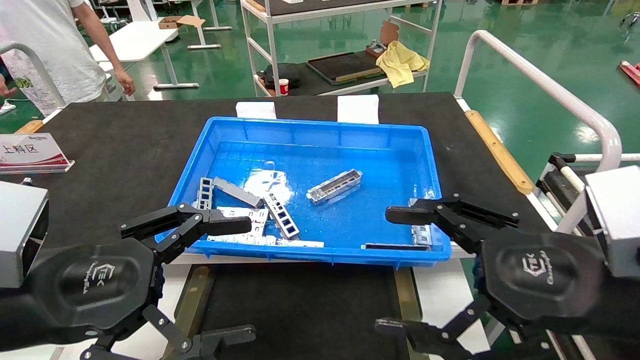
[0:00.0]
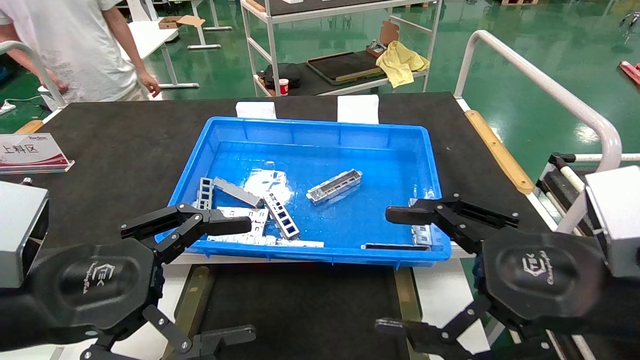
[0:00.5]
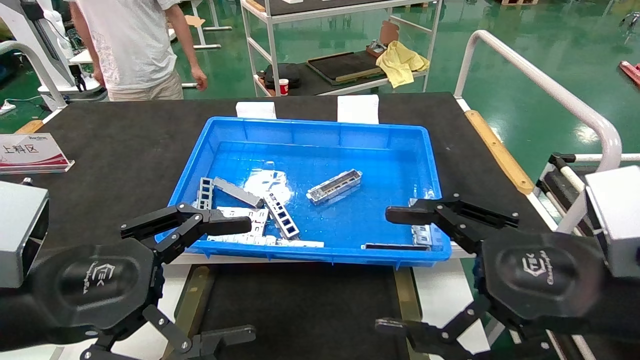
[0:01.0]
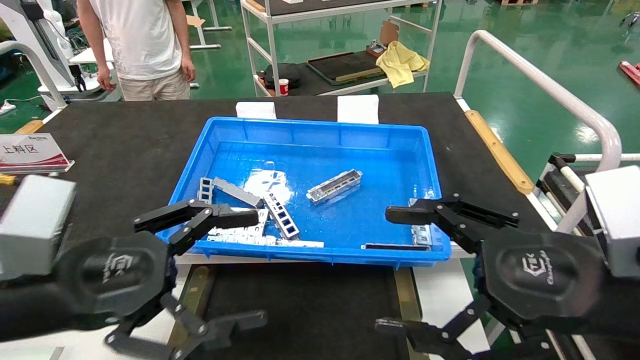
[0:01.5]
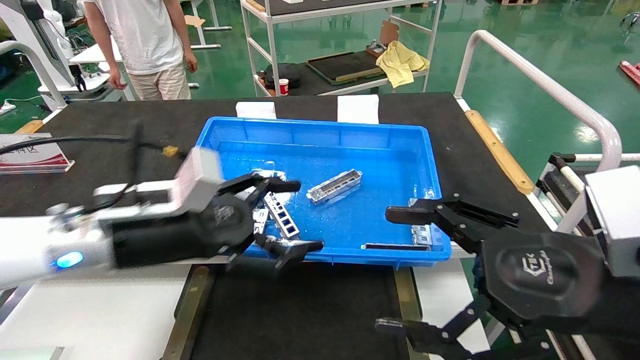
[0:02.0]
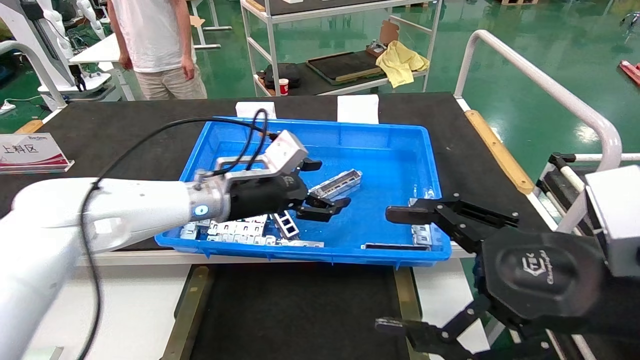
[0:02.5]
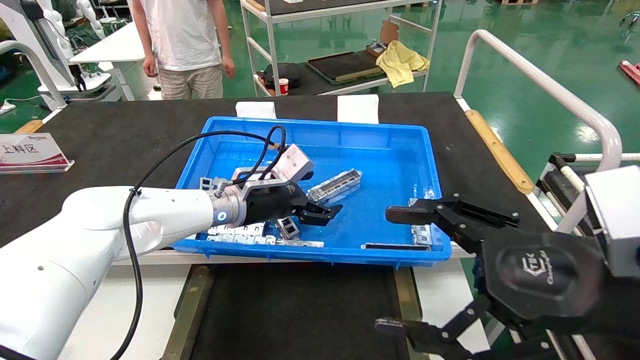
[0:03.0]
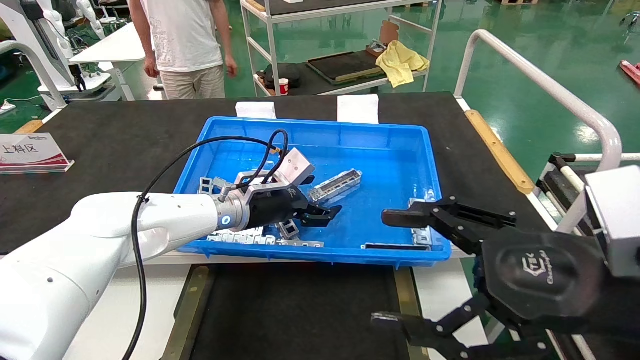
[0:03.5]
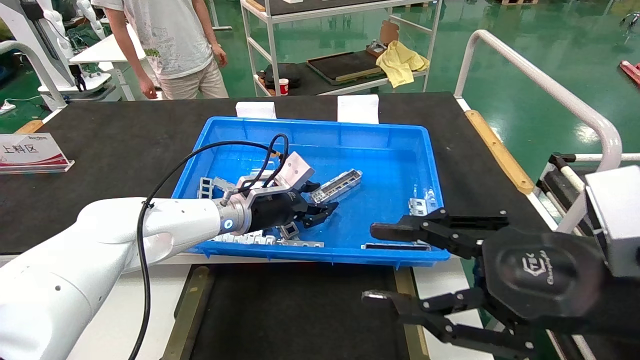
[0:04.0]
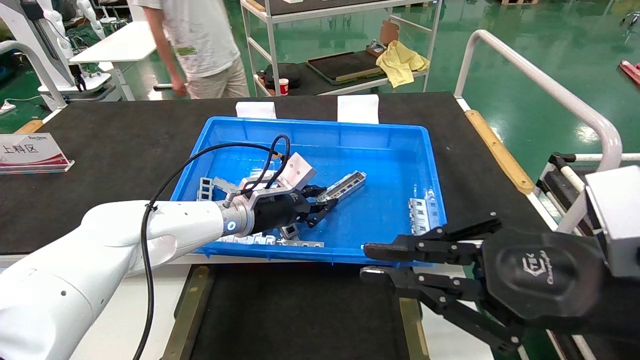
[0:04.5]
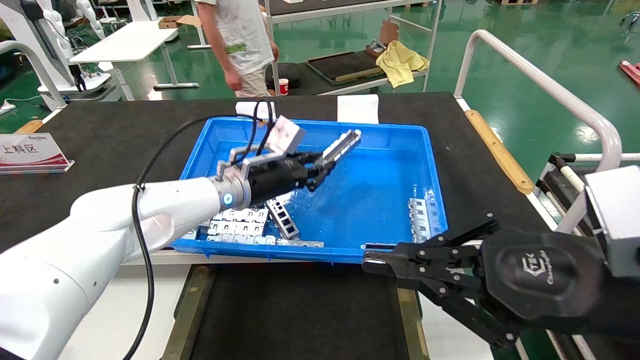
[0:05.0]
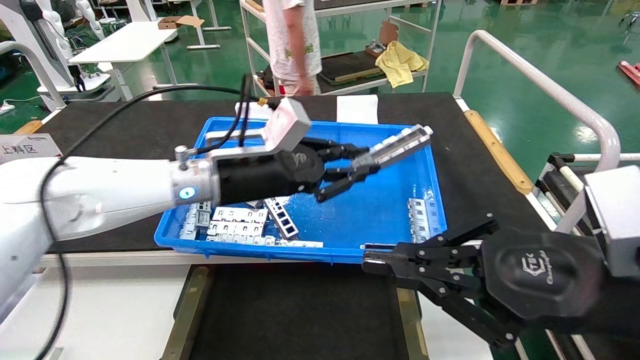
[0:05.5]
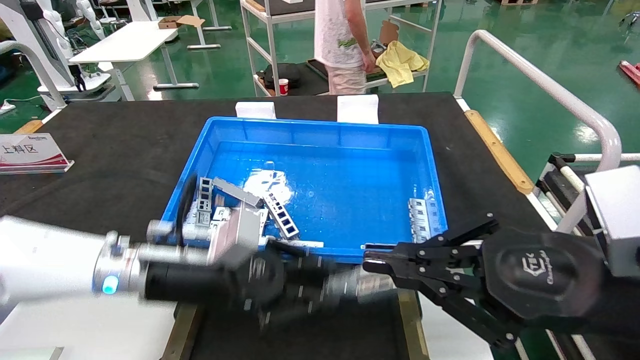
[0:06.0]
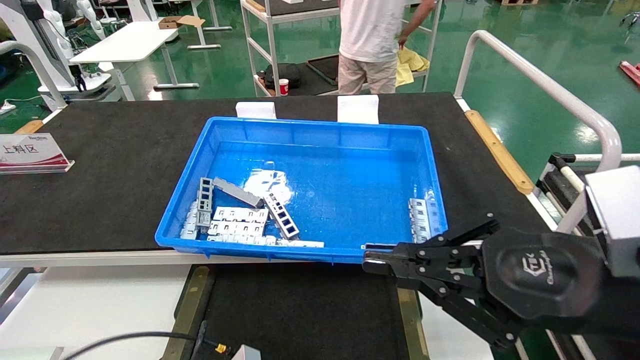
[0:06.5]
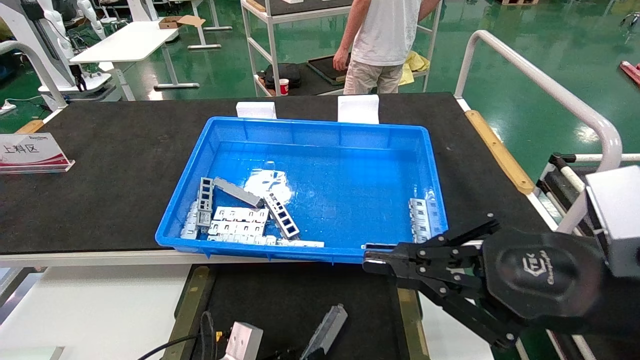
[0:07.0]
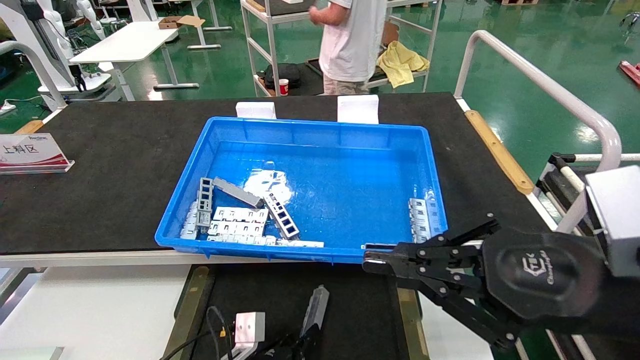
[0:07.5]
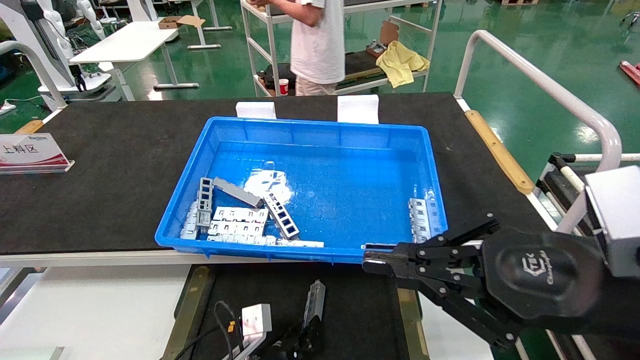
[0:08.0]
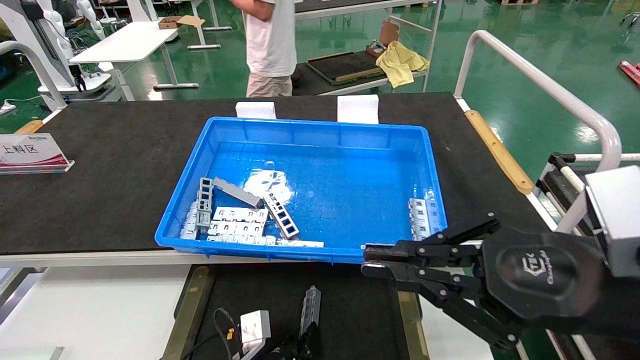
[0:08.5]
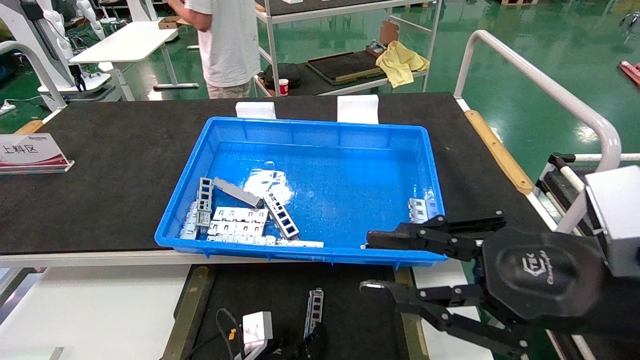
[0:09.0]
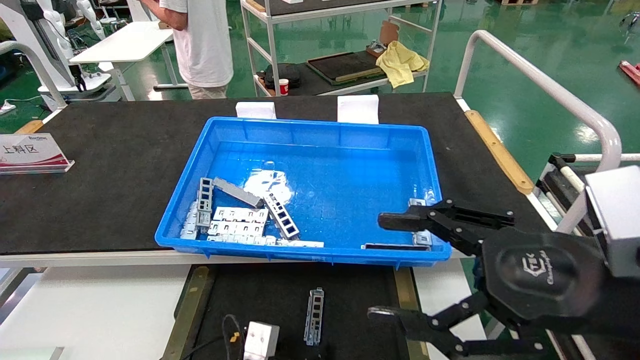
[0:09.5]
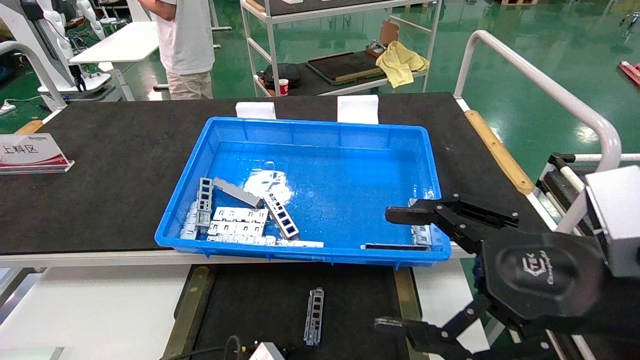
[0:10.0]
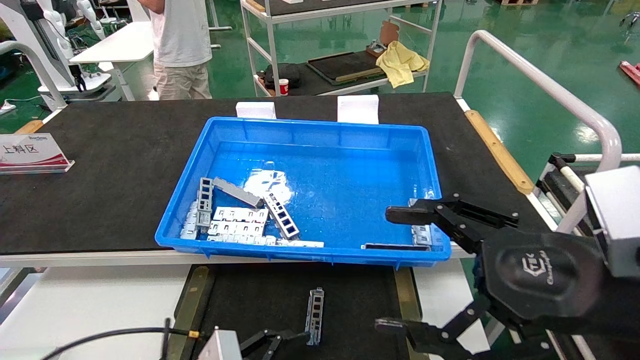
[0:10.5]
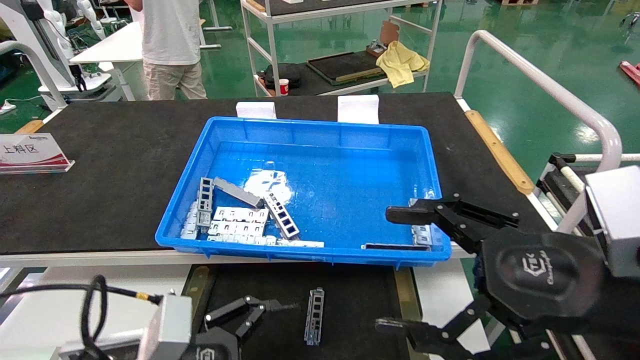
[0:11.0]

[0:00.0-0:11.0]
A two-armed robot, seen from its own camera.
Task of the whole recording: Grasp the part with one hand and place it on the black container.
Step, 0:02.0 to 0:04.5: Pick up the front USB bracket from the feeding area.
Step, 0:05.0 to 0:09.0: Place the front USB bracket into the box.
0:00.0 to 0:02.0: The left gripper shifts approximately 15 cm forward and to the right.
0:02.0 to 0:03.5: The left gripper travels forward and to the right by roughly 15 cm.
0:03.5 to 0:05.5: The left gripper goes some 10 cm backward and upward, and closes its fingers. The right gripper closes.
0:05.5 to 0:07.5: The left gripper travels downward by approximately 35 cm.
0:07.5 to 0:09.0: The grippers move only a little.
0:09.0 to 0:11.0: The left gripper moves upward, to the left and backward, approximately 25 cm, and opens. Meanwhile the right gripper opens up.
